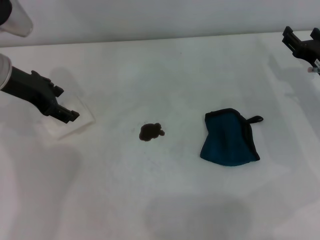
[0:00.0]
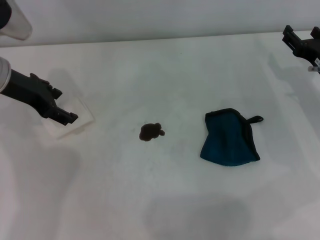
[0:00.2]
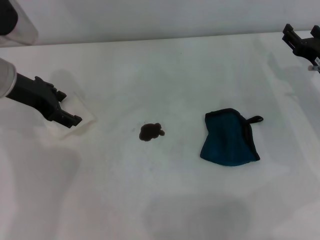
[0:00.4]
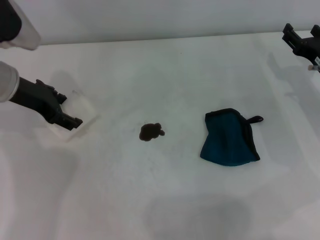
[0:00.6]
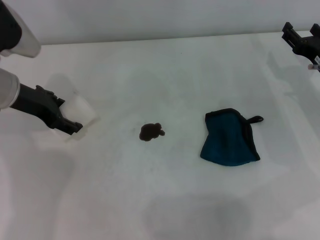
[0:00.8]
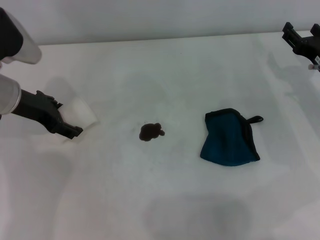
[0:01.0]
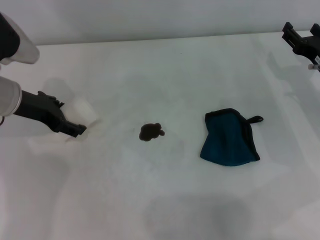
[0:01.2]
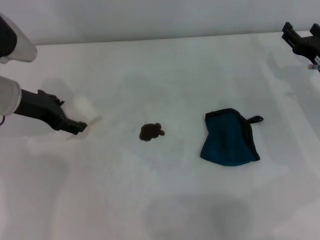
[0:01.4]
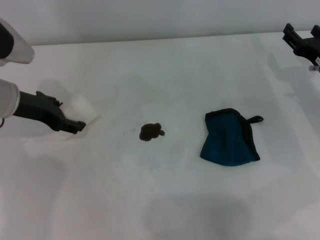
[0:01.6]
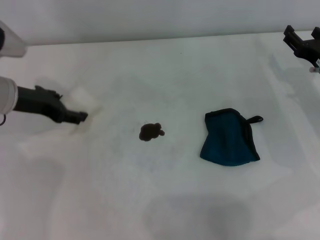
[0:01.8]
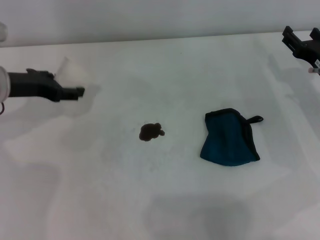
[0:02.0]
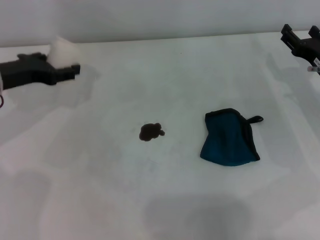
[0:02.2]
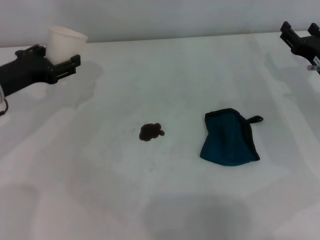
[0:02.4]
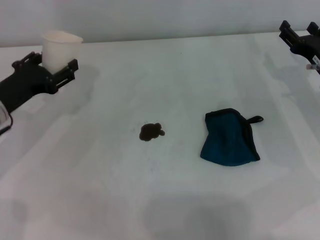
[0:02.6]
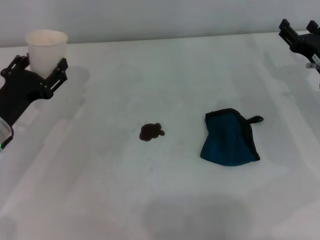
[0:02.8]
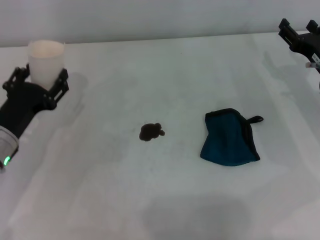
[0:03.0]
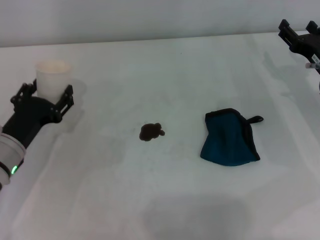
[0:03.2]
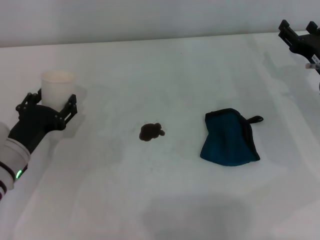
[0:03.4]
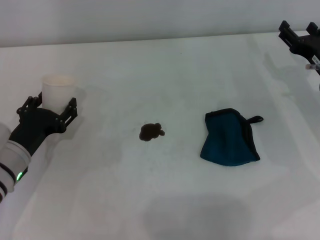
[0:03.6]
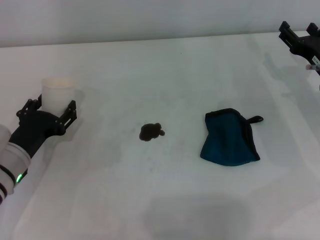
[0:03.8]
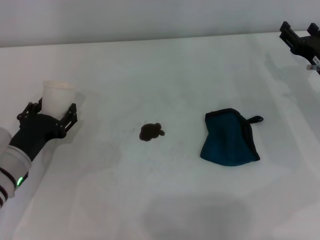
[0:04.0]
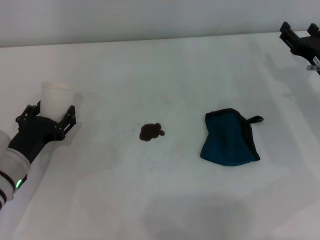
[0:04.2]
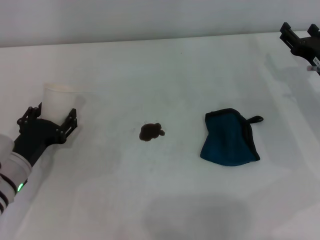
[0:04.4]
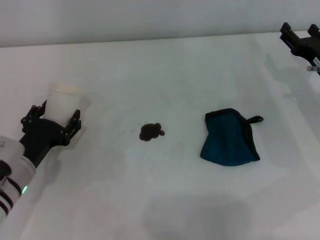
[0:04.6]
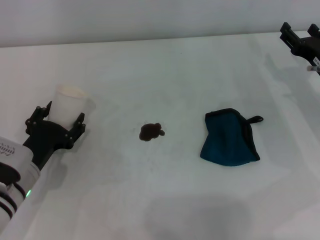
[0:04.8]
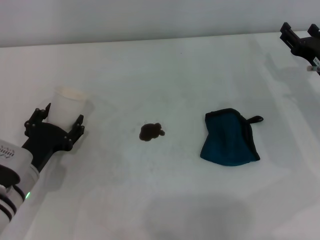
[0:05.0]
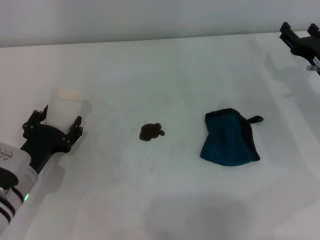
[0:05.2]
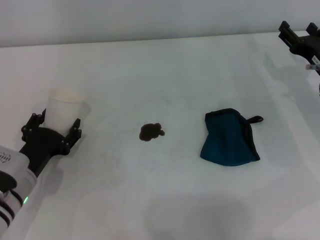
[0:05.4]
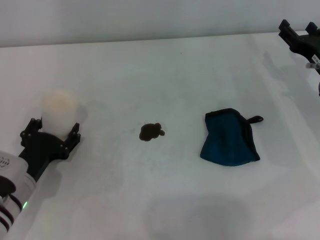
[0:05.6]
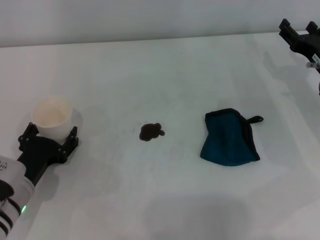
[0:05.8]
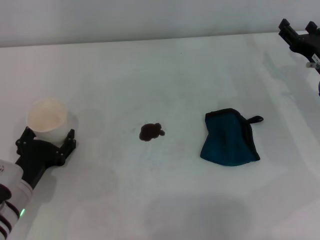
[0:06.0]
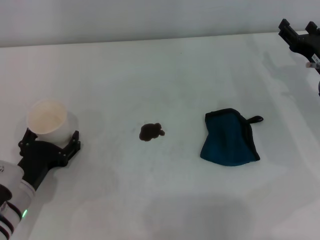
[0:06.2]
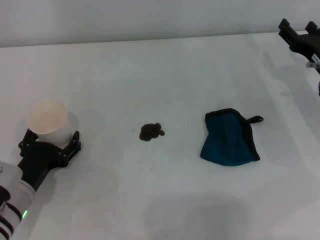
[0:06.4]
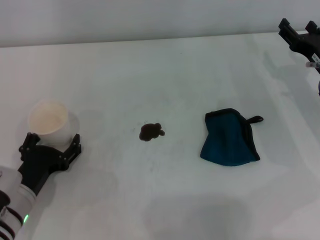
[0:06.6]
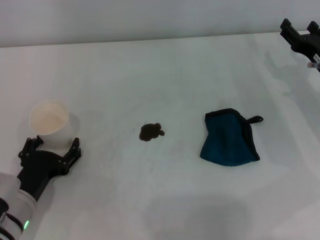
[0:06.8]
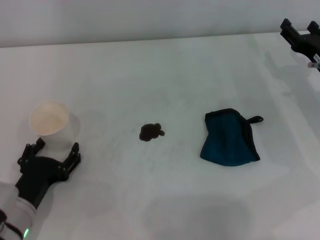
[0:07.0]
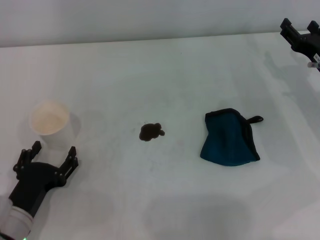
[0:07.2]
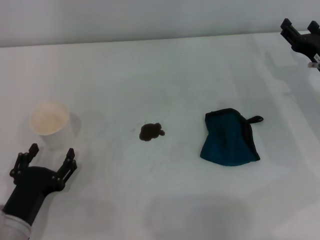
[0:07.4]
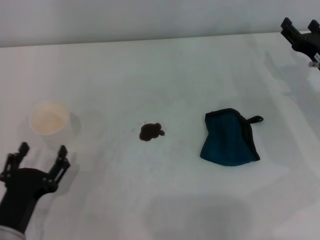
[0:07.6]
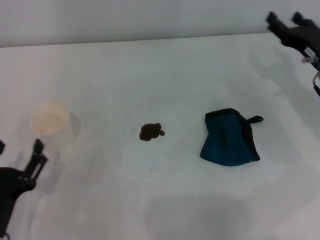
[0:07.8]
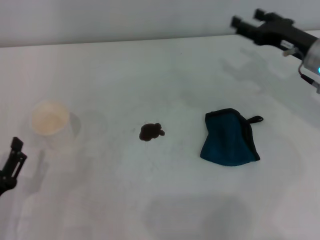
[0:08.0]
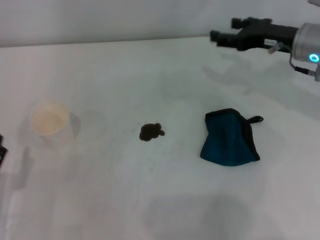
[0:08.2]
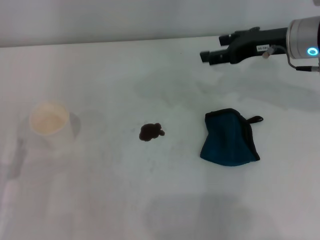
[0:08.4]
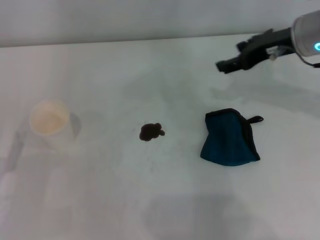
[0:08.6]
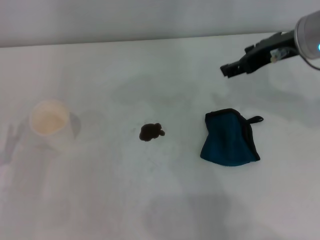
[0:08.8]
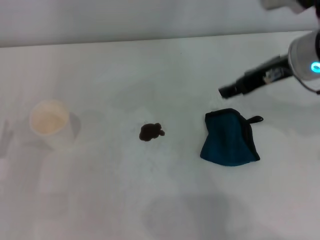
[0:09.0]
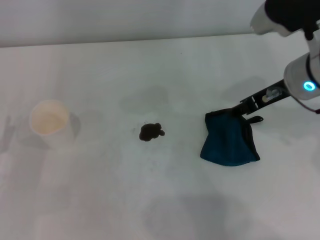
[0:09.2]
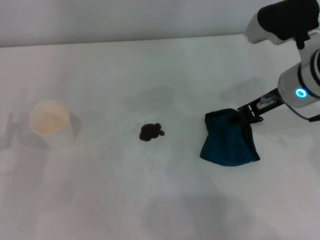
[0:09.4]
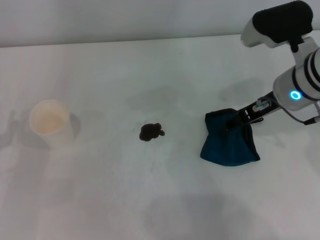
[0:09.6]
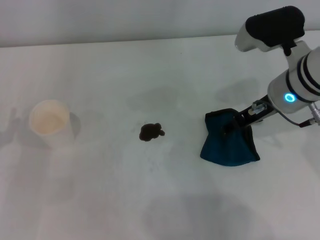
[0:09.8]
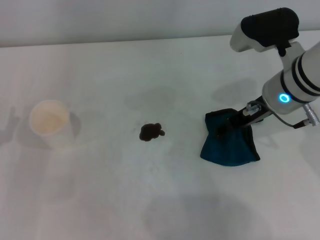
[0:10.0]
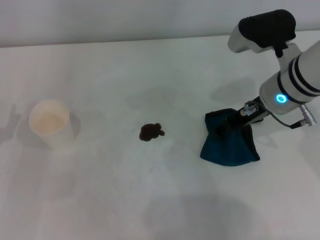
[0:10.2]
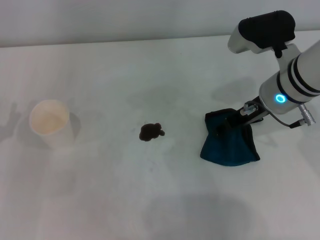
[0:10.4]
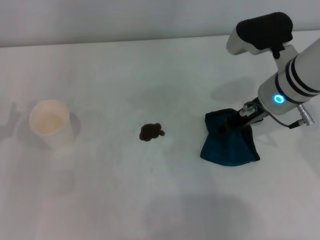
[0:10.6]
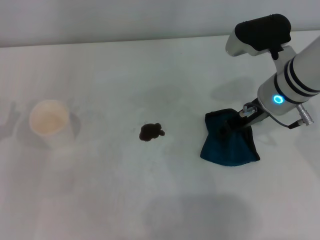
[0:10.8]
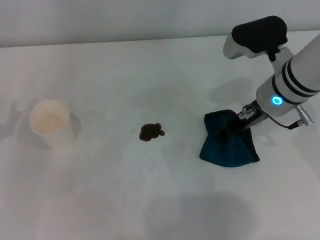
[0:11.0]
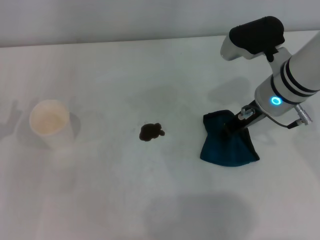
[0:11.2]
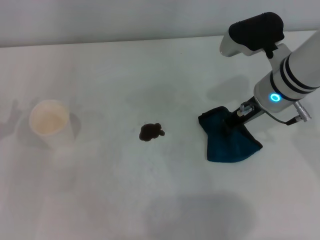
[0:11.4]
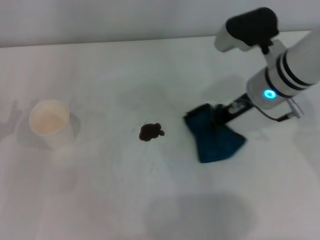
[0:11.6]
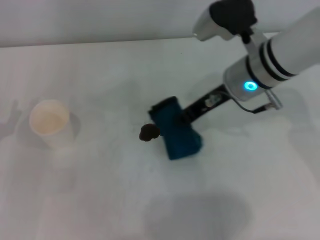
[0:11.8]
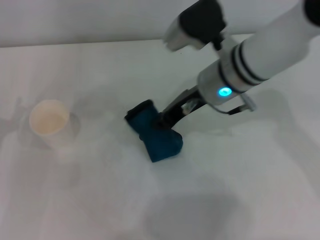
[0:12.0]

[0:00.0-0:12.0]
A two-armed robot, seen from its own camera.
Step, 0:01.0 to 0:06.0: Stand the paper cup upright with the left gripper.
Step, 0:06.2 to 0:11.0: Grasp the rag with the right gripper.
0:00.0 to 0:01.6: The left gripper is displaced downward by some 5 cm.
0:01.6 to 0:03.0: The left gripper heads backward and downward, covering roughly 10 cm.
0:03.0 to 0:04.4: The grippers make only small movements.
0:04.4 to 0:06.0: The grippers stay close to where they were, moving slightly.
0:06.0 to 0:07.6: The left gripper is displaced backward by roughly 10 cm, and opens its fingers.
0:07.6 to 0:09.0: The left gripper heads to the left and forward, covering roughly 10 cm; the right gripper is displaced upward and to the left by some 20 cm.
0:09.0 to 0:10.4: The right gripper goes roughly 5 cm downward.
0:10.4 to 0:12.0: The right gripper is displaced to the left by some 10 cm, and closes.

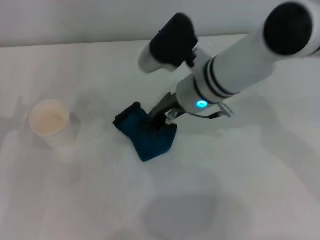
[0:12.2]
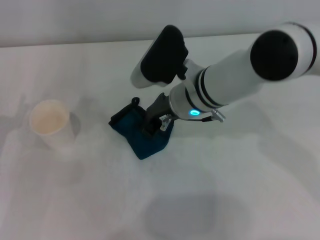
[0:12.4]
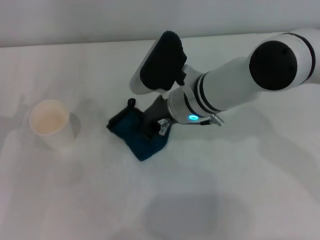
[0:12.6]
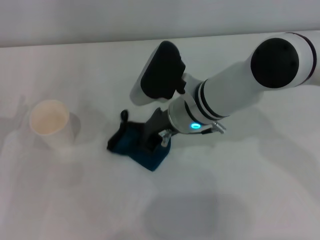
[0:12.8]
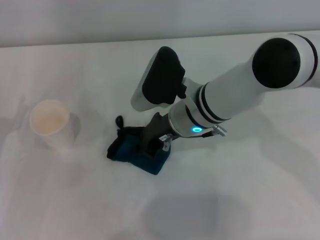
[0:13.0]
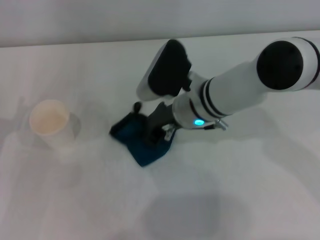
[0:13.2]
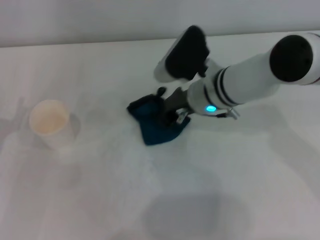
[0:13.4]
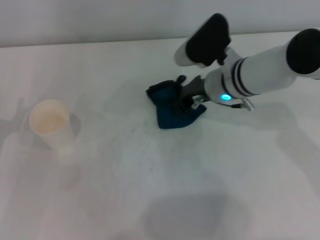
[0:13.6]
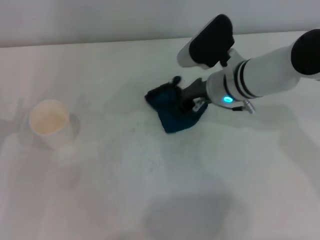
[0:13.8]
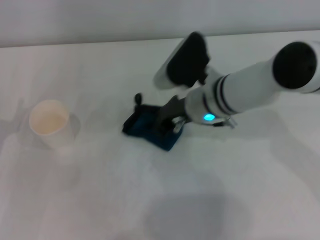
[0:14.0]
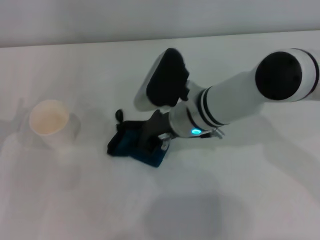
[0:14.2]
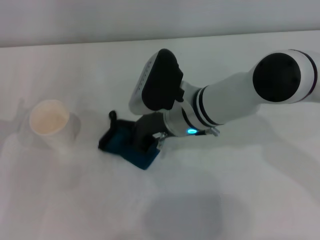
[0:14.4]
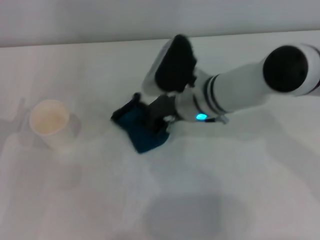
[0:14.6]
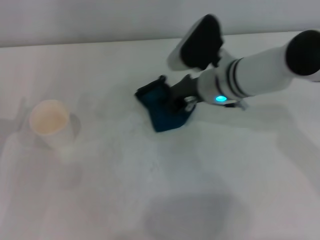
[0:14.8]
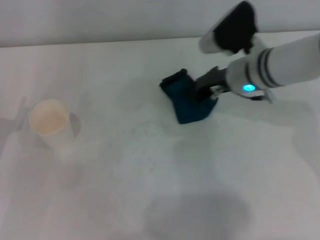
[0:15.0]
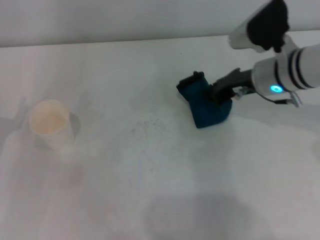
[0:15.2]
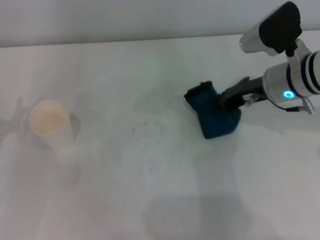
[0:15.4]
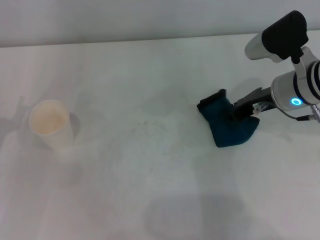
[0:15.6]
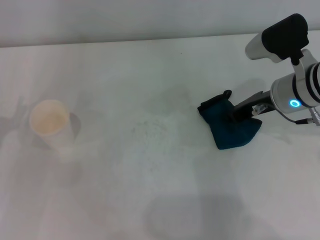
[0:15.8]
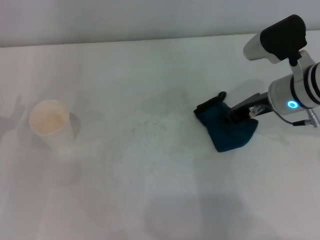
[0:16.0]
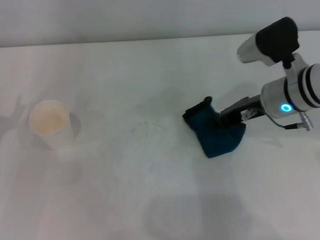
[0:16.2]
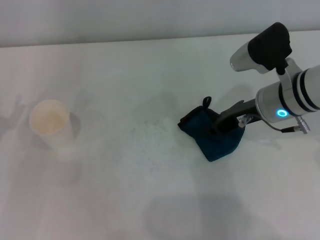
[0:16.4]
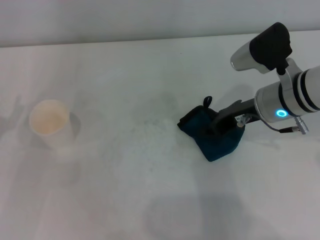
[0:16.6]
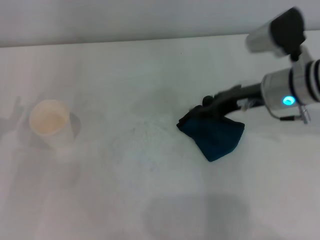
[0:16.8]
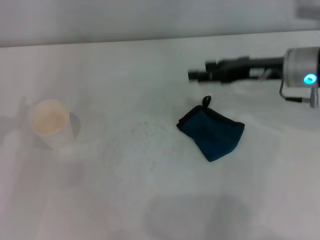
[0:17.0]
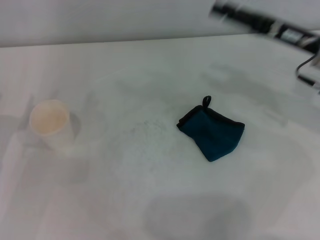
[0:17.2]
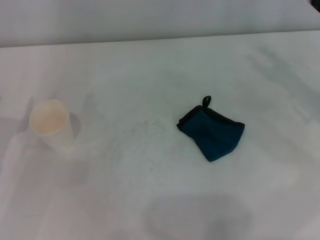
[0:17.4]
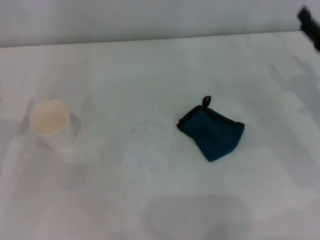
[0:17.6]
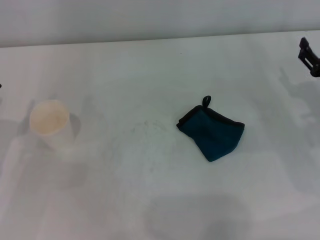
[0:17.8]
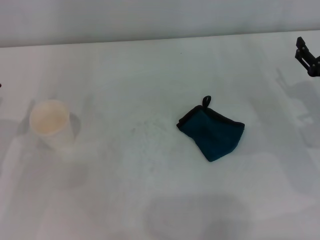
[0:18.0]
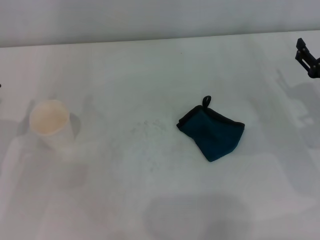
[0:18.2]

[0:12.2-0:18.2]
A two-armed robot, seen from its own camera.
Step, 0:12.2 to 0:14.8: Wipe the stains off the table with the right gripper.
Step, 0:15.0 to 0:16.6: Place the rag on the table with the right gripper.
0:12.2 to 0:13.8: The right gripper heads to the right, covering roughly 5 cm.
0:13.8 to 0:15.2: The right gripper goes about 5 cm to the right.
0:15.2 to 0:16.6: The grippers make only small movements.
0:16.6 to 0:18.2: The right gripper moves to the right, downward and backward, some 15 cm, and opens.
